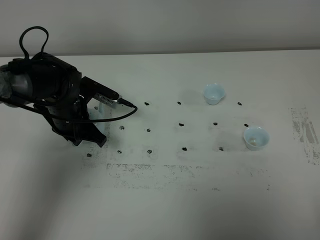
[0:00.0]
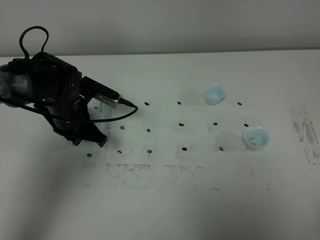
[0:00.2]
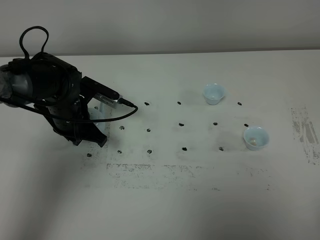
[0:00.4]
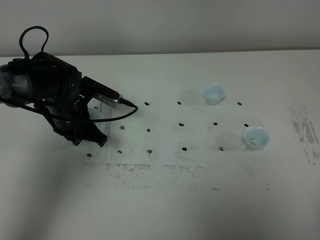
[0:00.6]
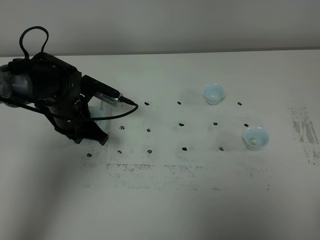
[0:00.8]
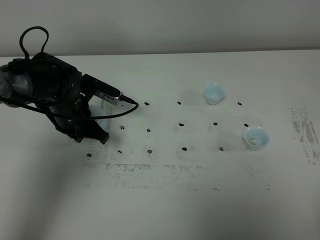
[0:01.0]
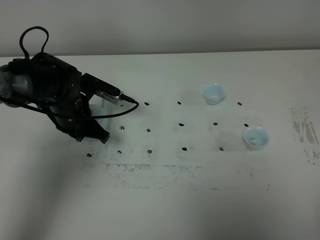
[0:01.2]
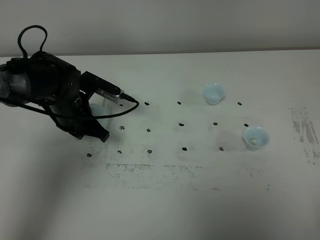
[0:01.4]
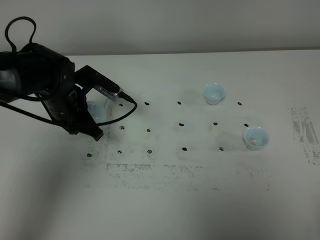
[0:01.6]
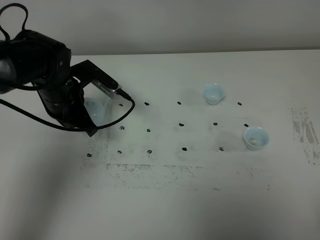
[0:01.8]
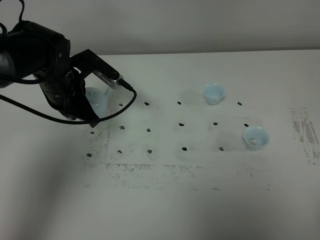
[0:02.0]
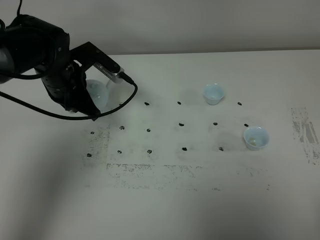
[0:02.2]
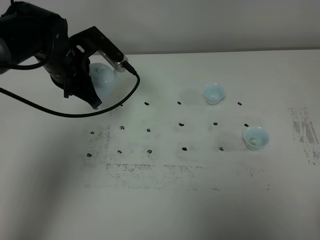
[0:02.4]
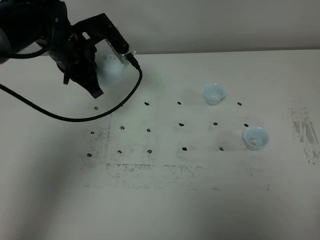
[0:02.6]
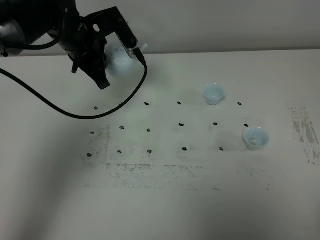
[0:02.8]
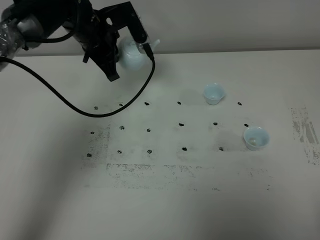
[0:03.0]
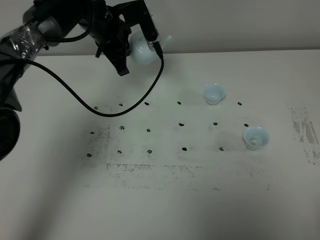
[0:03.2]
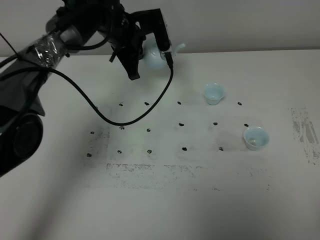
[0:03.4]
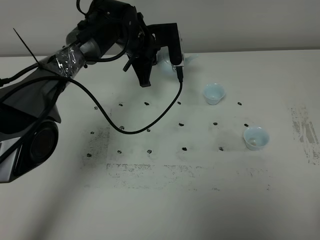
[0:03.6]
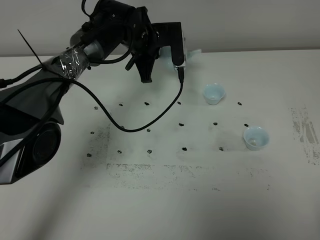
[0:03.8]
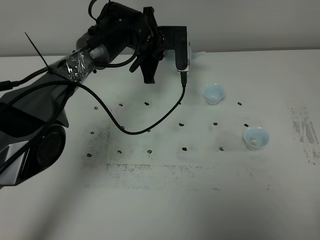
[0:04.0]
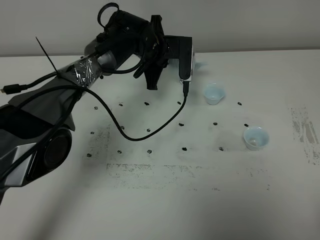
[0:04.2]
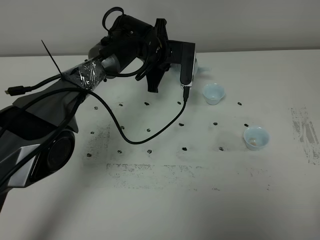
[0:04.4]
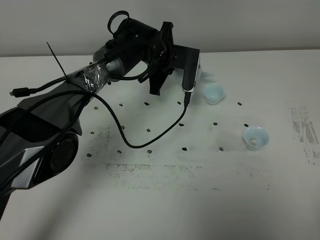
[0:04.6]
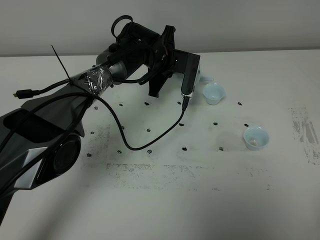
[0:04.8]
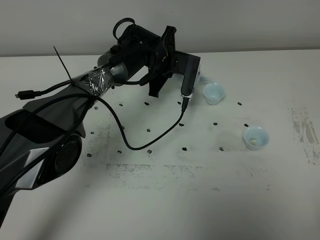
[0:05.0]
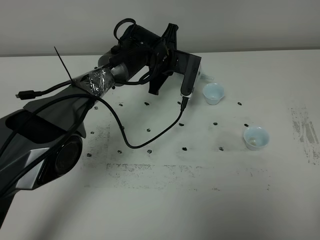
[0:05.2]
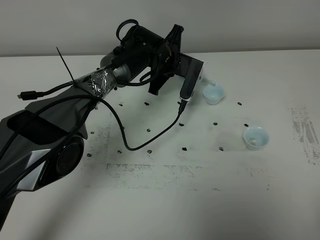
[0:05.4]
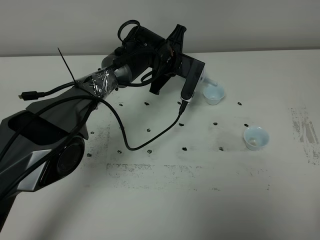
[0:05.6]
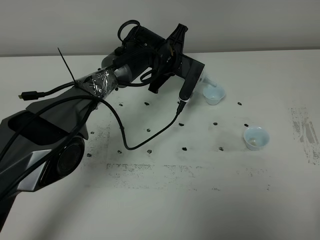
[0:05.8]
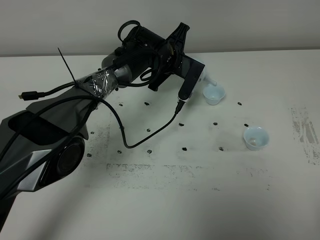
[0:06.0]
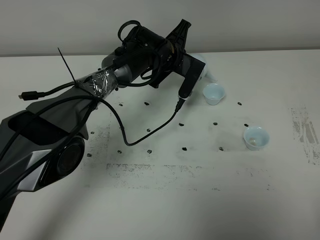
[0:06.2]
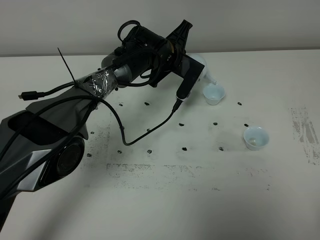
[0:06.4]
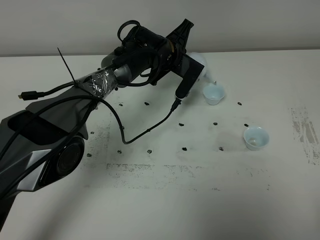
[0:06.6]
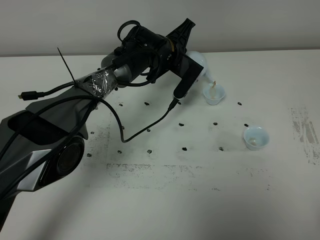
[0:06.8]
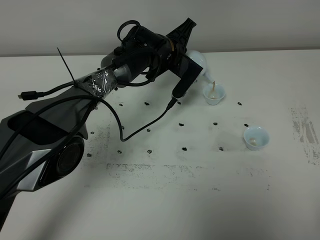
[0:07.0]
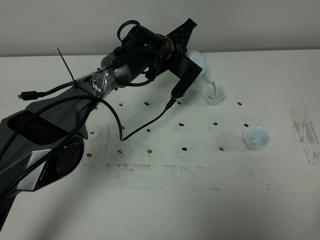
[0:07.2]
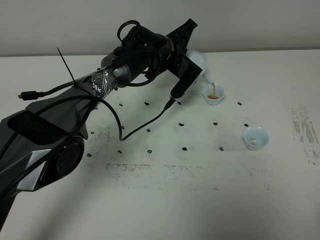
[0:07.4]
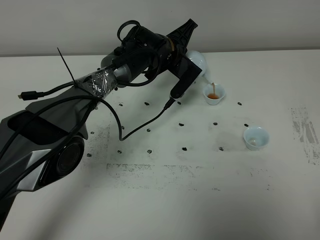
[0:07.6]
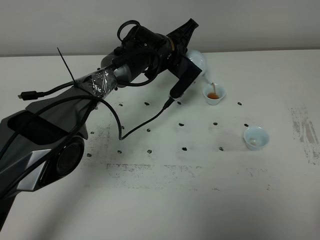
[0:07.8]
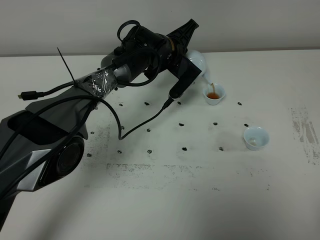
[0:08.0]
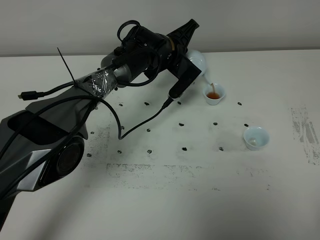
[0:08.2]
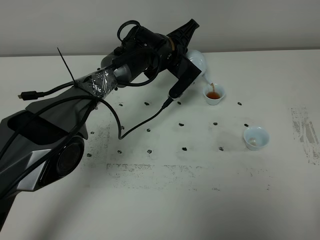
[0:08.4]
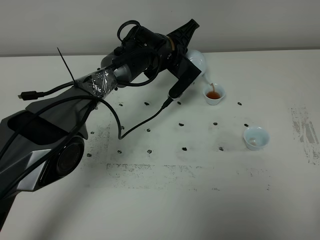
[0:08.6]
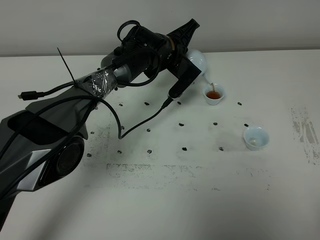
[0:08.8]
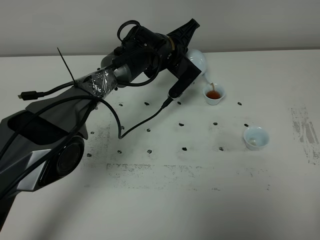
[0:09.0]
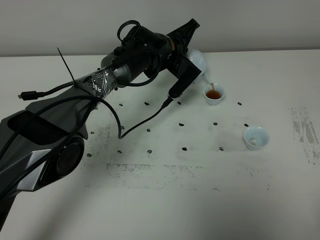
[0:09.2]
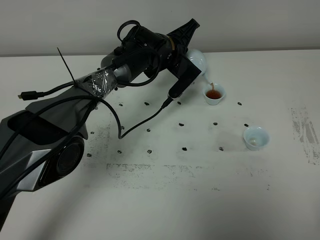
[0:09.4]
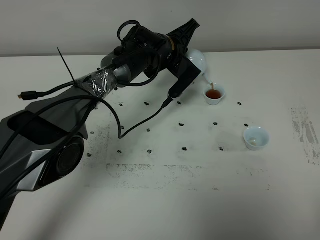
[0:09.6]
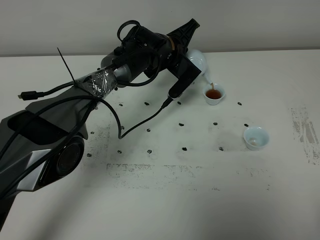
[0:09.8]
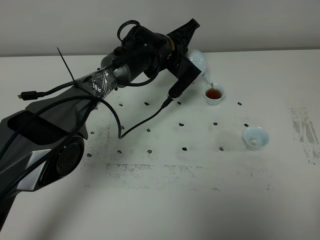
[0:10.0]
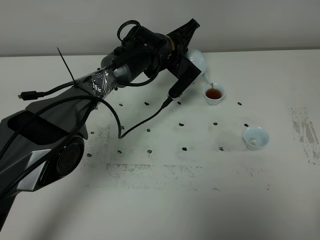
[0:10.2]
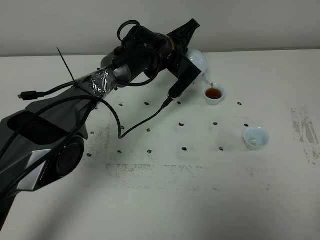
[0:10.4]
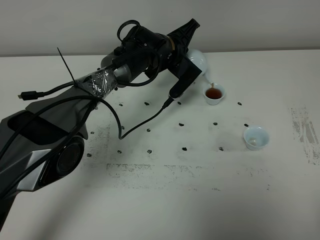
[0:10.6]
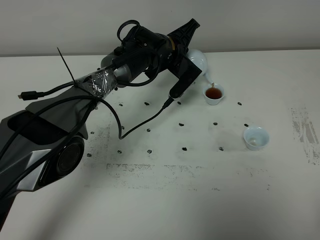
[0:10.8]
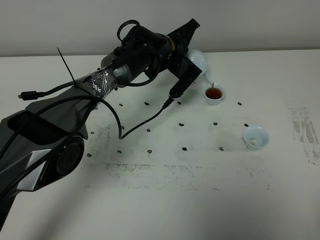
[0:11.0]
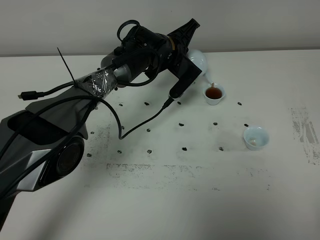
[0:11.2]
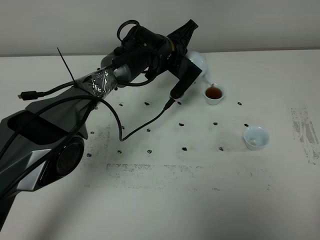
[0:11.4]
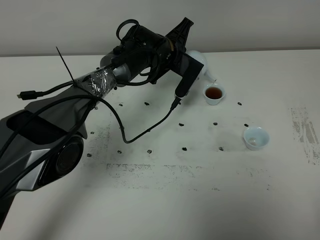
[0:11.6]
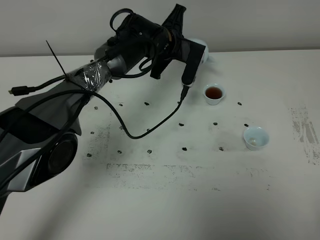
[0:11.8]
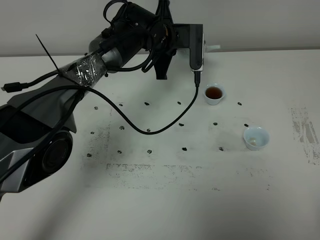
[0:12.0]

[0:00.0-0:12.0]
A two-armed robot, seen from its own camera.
Task of the whole recording: grasp the blue porcelain teapot and pour the tea into the two blue porcelain teacups one by one, put the blue porcelain teapot back in its original place.
Step, 0:00.0 to 0:02.0: Pick up the teapot with the left gripper.
0:00.0 to 0:01.6: The grippers make only small movements.
0:01.6 to 0:03.0: The left gripper heads forward, upward and to the right, covering about 15 cm.
0:03.0 to 0:04.4: The left gripper goes approximately 15 cm to the right and downward.
0:06.0 to 0:07.6: The grippers move only a little.
0:07.6 to 0:10.4: Both grippers stay about where they are.

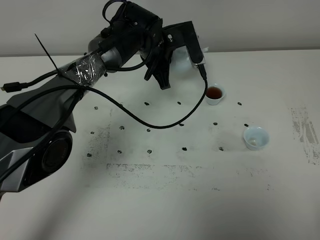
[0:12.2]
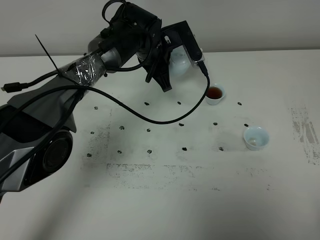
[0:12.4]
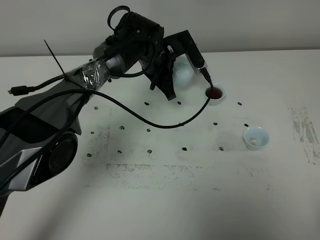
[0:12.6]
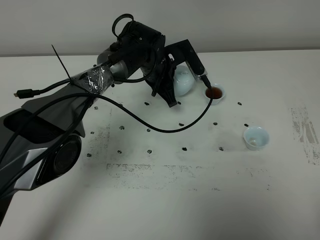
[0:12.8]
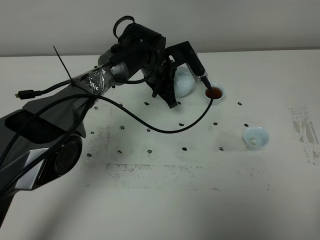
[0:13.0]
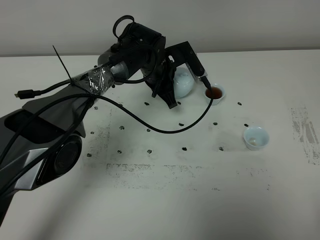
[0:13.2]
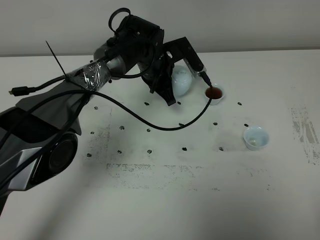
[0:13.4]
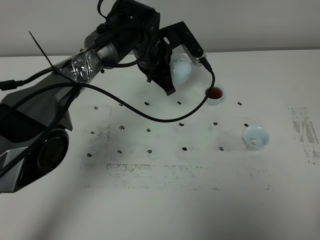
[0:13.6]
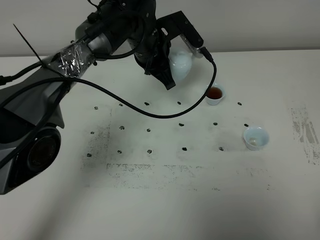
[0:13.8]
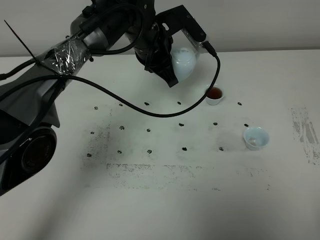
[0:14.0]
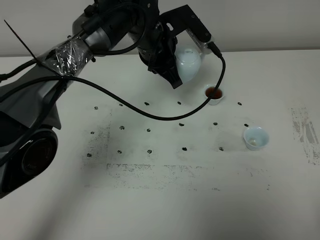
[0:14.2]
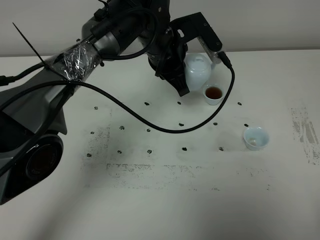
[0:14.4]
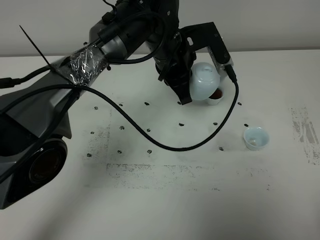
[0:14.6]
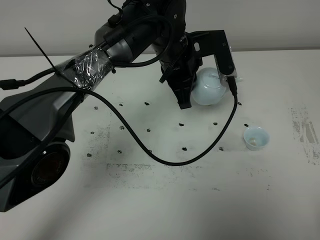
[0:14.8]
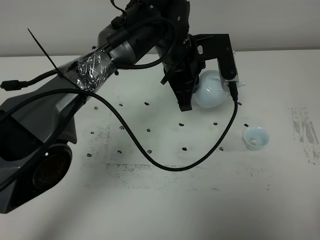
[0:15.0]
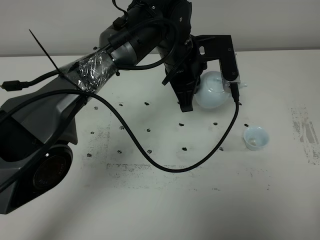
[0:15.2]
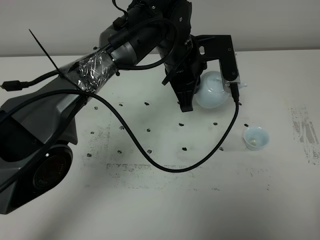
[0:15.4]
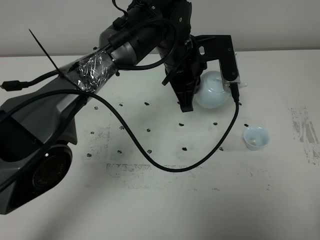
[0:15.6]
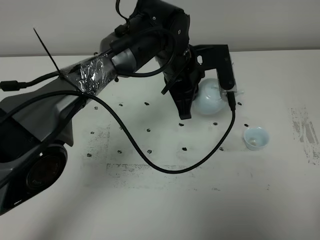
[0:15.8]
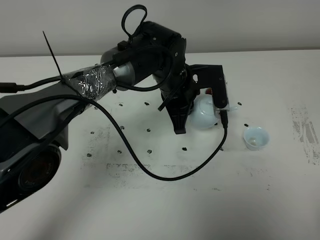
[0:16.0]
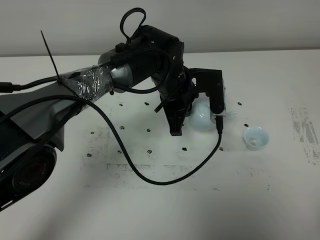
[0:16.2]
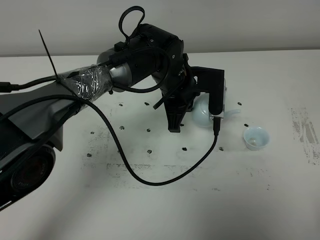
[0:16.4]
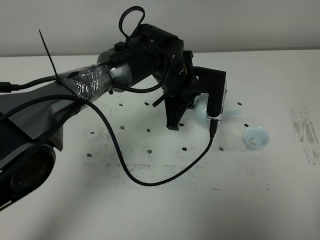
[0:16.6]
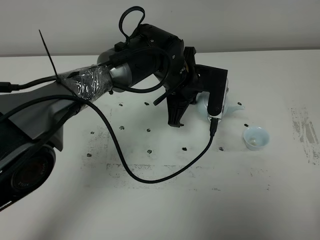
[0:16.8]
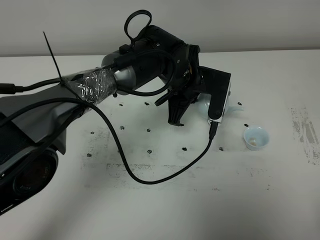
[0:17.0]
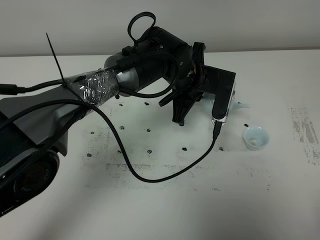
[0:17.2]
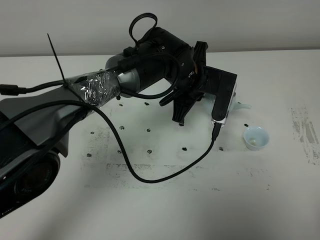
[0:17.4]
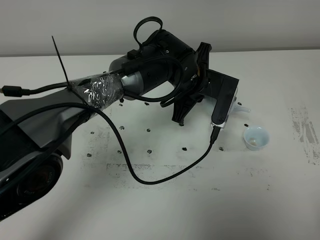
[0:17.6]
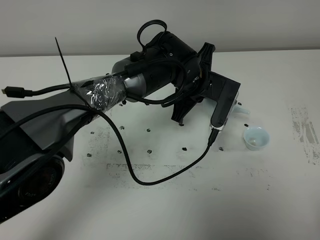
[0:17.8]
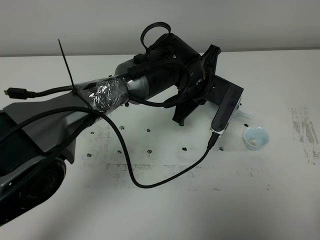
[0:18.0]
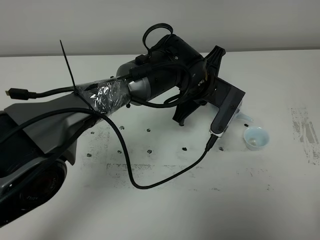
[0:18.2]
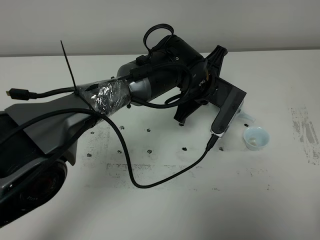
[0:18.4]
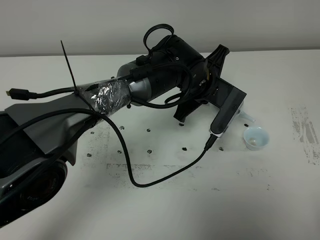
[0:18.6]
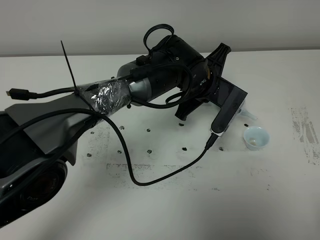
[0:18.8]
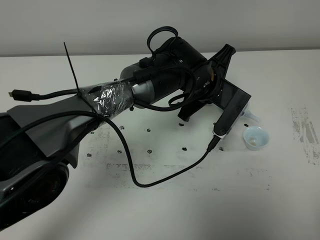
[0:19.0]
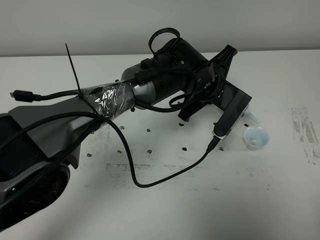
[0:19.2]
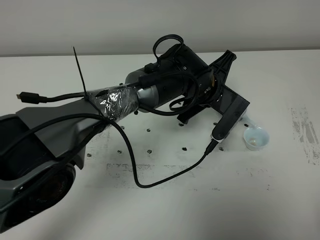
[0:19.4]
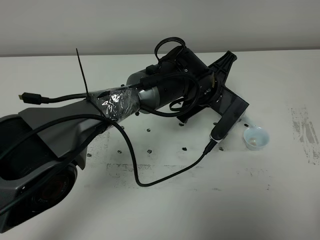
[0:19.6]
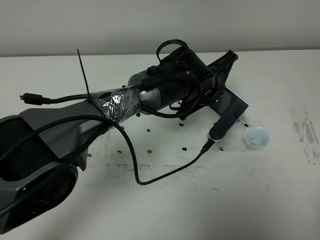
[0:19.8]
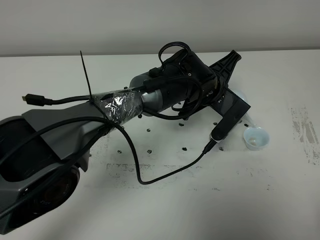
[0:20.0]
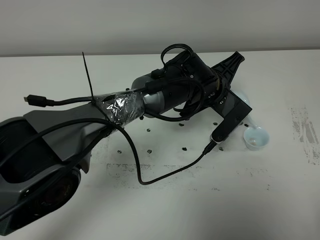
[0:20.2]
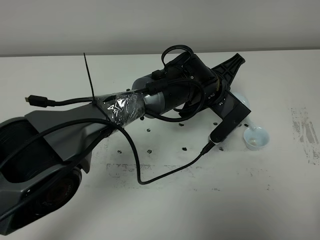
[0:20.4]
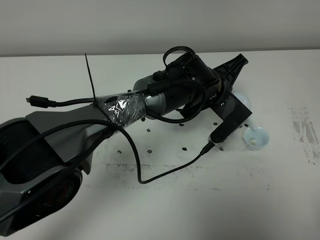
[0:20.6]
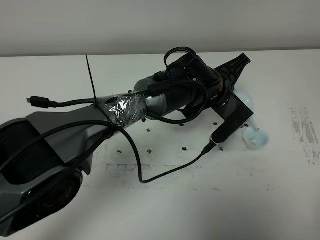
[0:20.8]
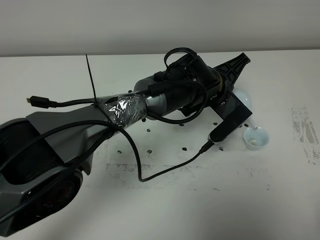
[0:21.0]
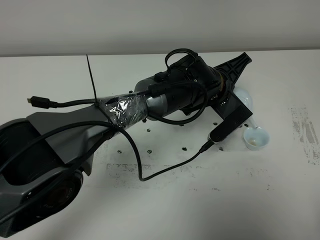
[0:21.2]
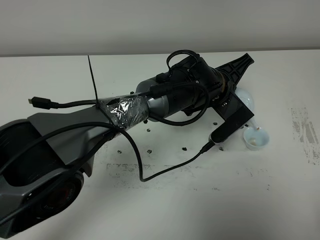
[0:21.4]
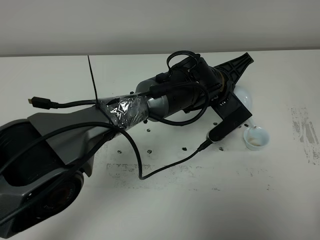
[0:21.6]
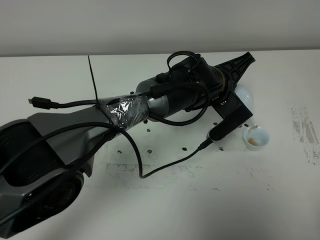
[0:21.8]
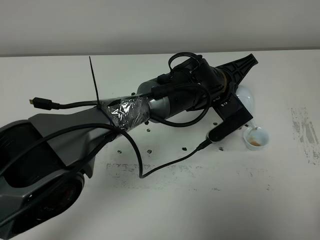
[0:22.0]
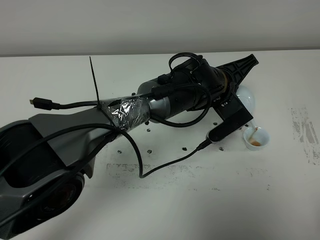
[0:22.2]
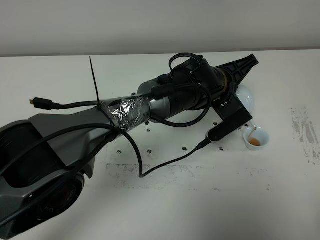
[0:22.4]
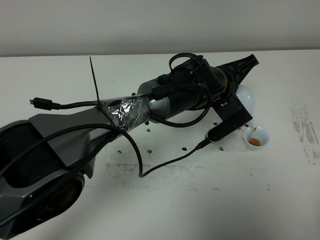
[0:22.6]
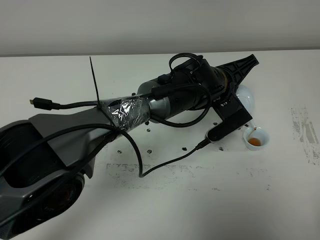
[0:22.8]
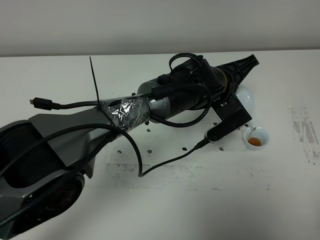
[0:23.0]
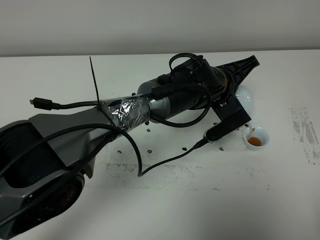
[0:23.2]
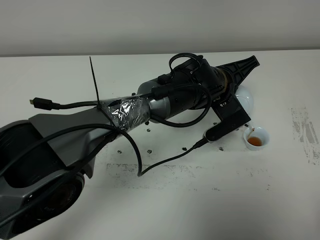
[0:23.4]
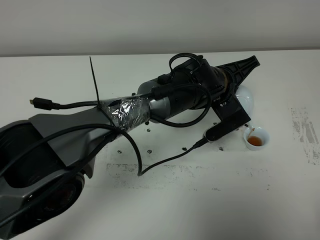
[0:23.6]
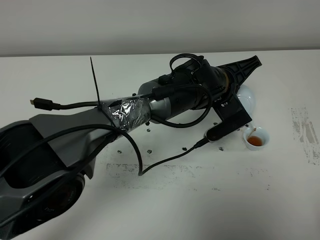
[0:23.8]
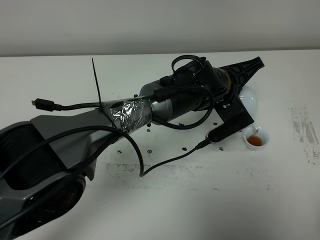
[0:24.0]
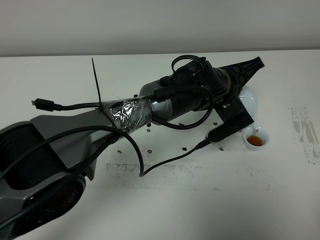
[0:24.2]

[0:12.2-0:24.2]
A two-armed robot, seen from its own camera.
Task of the whole recording: grasp the blue porcelain teapot and pour the tea into the two blue porcelain teacups one by one, put the blue porcelain teapot back in its original place.
0:12.2 to 0:13.8: There are only small adjustments of the grippers.
0:13.8 to 0:15.2: The left gripper travels to the right and backward by approximately 10 cm.
0:15.2 to 0:16.6: The left gripper goes approximately 5 cm downward.
0:18.2 to 0:19.8: The grippers move only a little.
0:19.8 to 0:22.6: The grippers stay close to where they were, moving slightly.
0:22.6 to 0:24.2: Neither gripper changes place.
